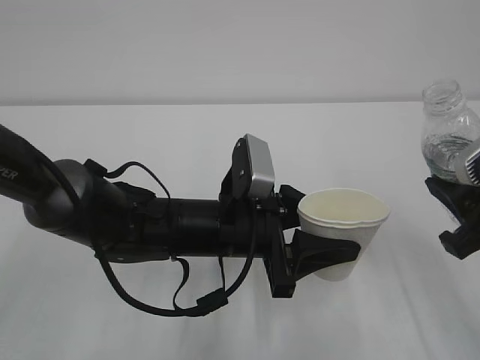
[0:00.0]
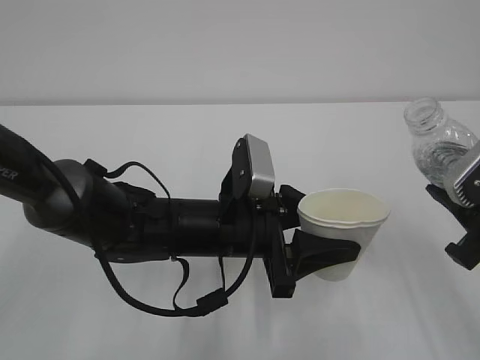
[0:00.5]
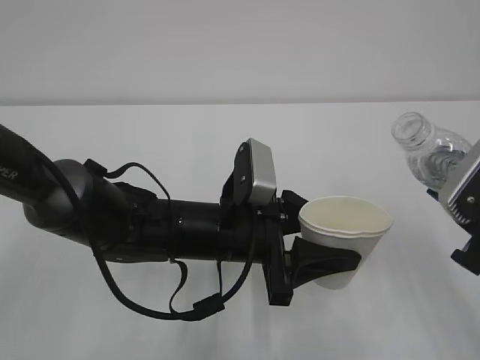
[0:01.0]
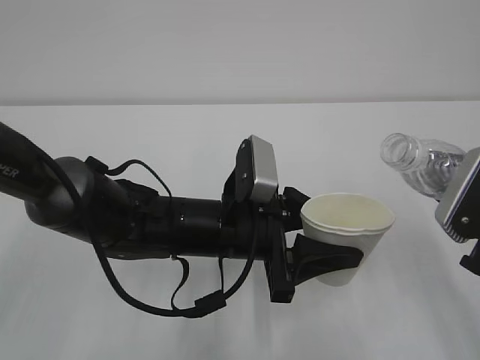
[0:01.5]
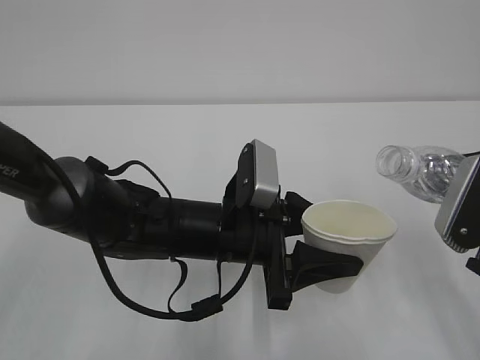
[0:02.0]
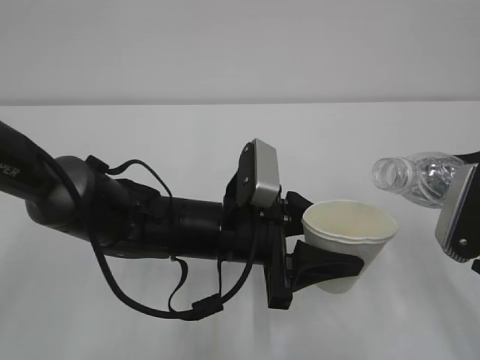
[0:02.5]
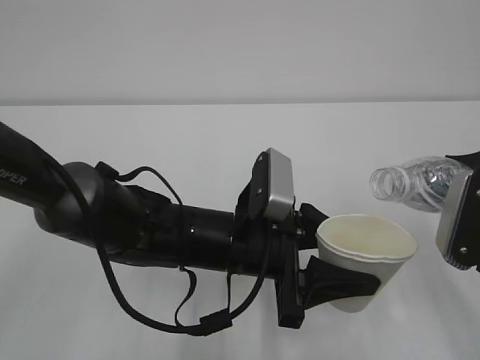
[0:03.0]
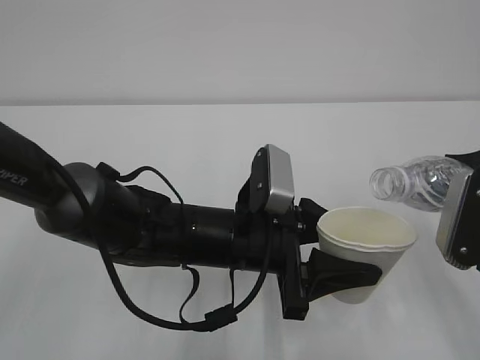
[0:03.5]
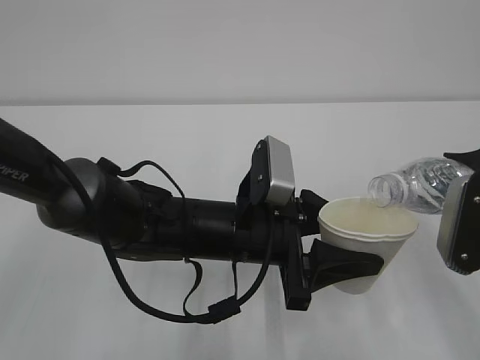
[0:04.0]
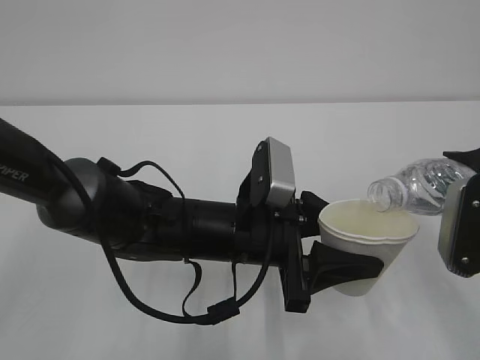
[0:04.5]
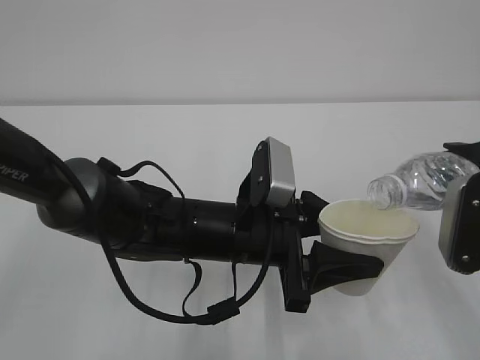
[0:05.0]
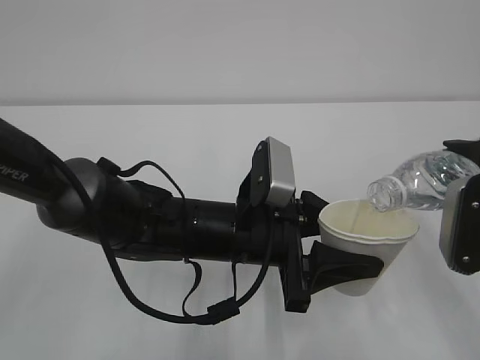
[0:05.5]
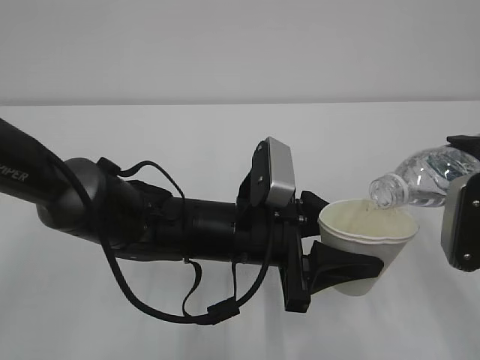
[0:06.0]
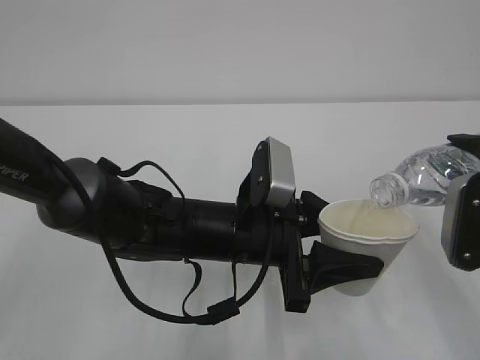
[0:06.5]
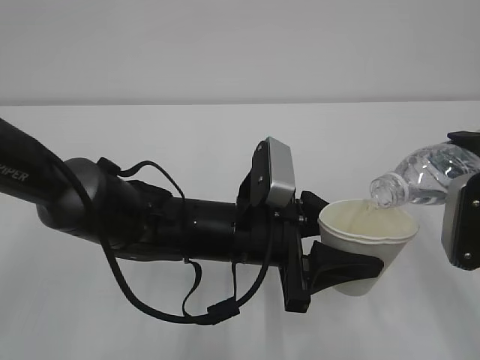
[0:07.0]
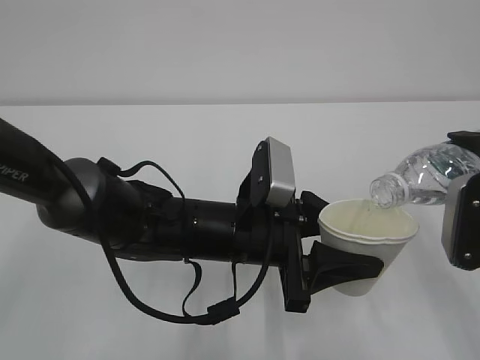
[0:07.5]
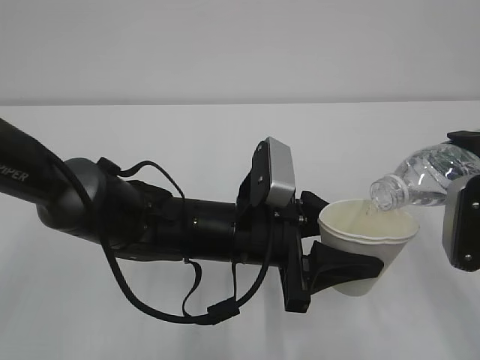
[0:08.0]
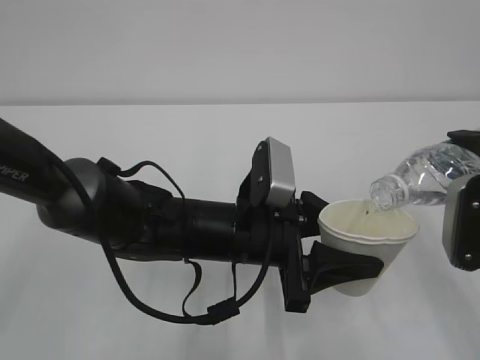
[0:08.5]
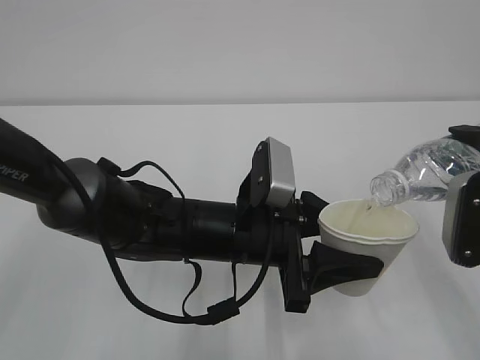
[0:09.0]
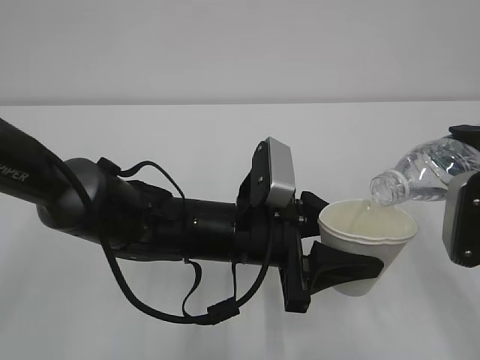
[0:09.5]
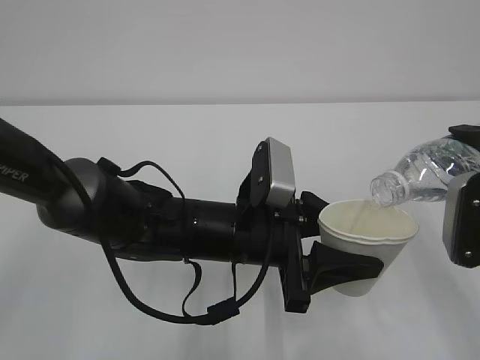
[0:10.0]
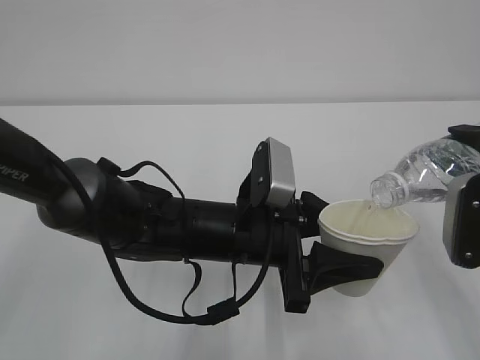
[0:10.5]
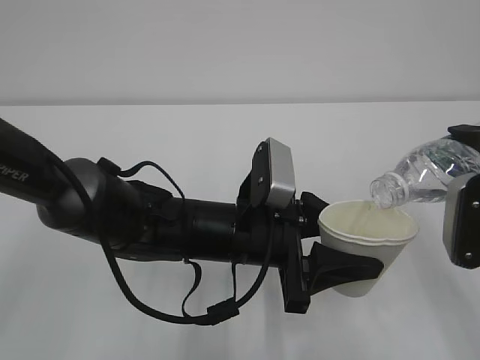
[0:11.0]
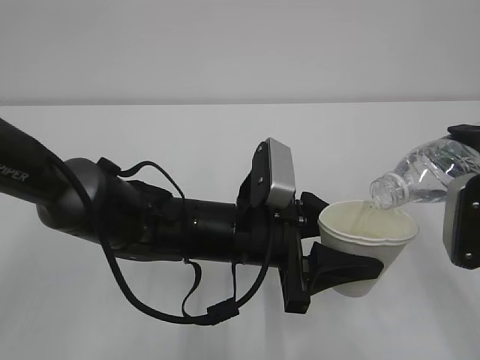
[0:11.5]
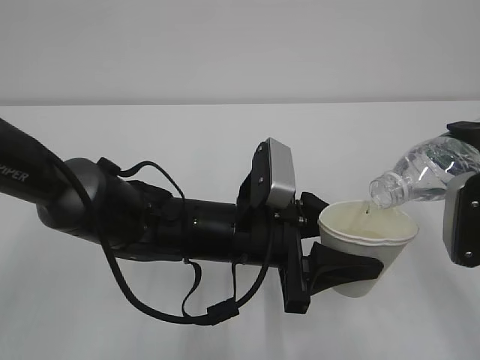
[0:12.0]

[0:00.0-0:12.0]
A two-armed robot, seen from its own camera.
2.0 to 4.0 s: The grippers move only a little.
4.0 to 6.0 s: The grippers stay close to where they were, moving slightly.
6.0 to 10.0 s: Neither gripper changes place.
10.0 to 12.0 s: Neither gripper changes place.

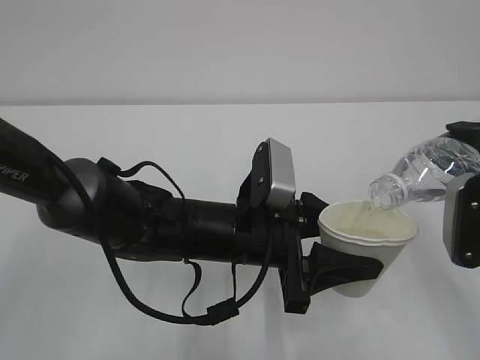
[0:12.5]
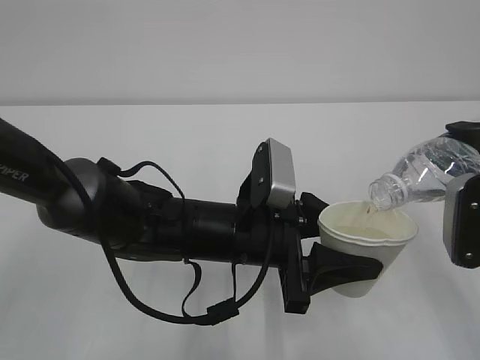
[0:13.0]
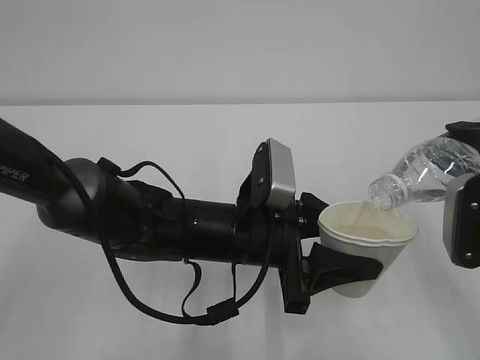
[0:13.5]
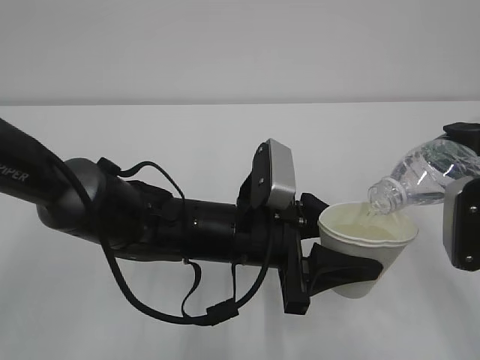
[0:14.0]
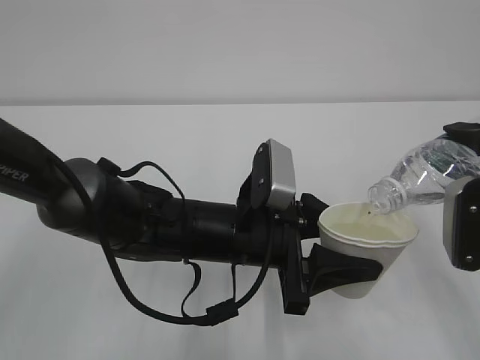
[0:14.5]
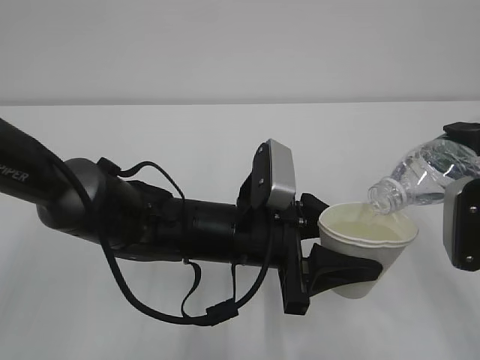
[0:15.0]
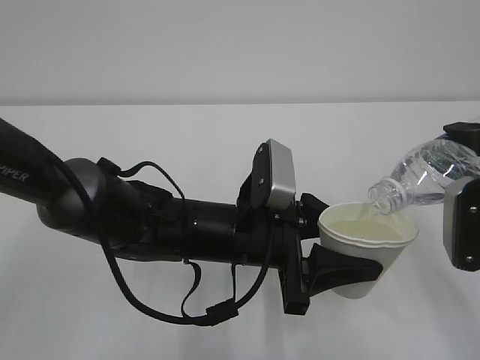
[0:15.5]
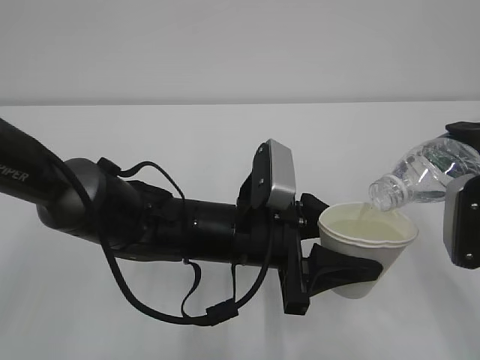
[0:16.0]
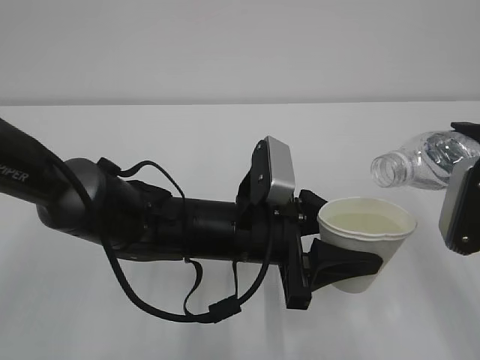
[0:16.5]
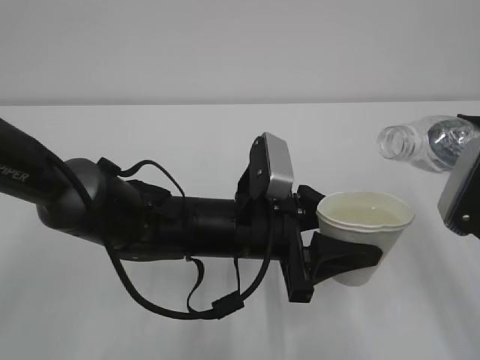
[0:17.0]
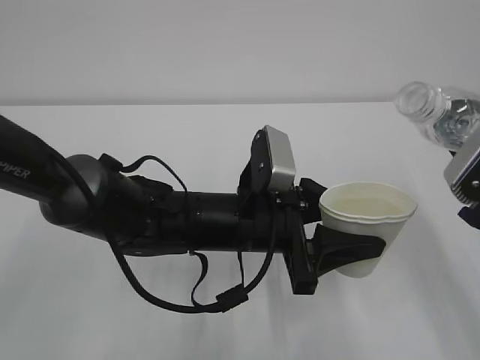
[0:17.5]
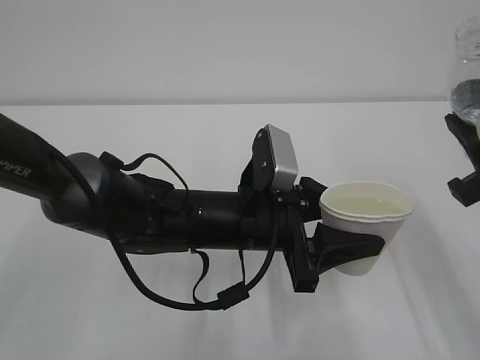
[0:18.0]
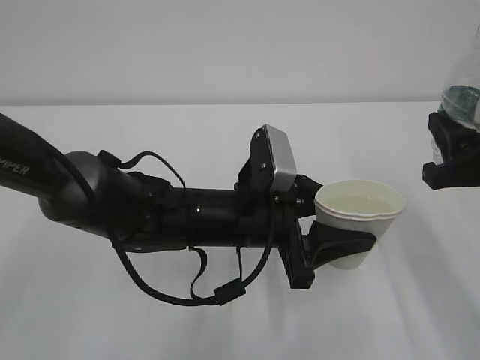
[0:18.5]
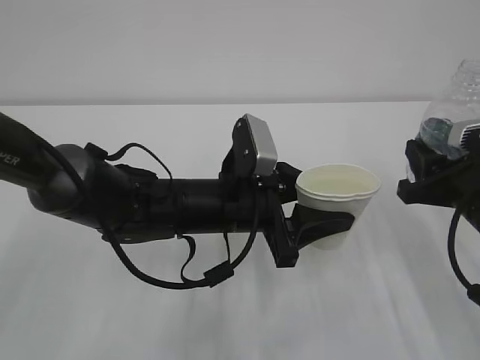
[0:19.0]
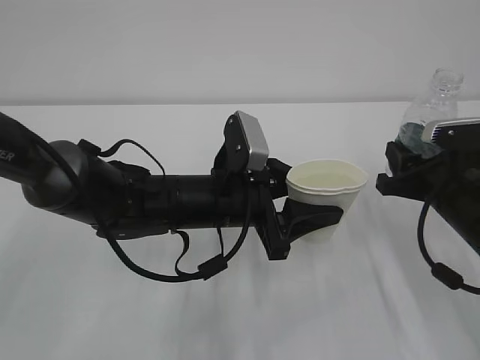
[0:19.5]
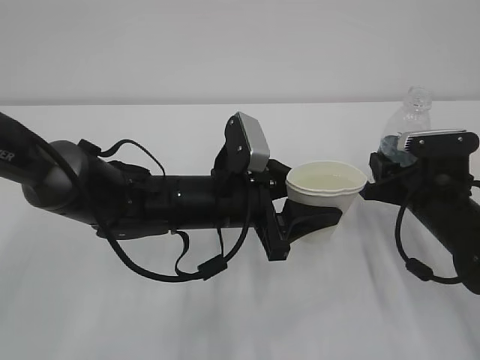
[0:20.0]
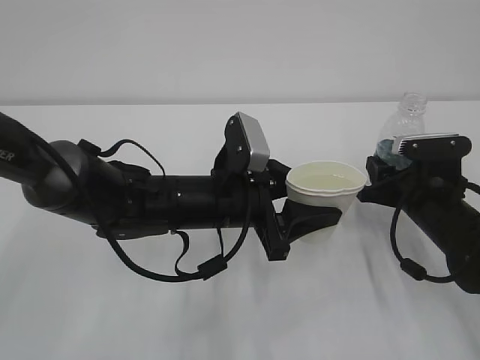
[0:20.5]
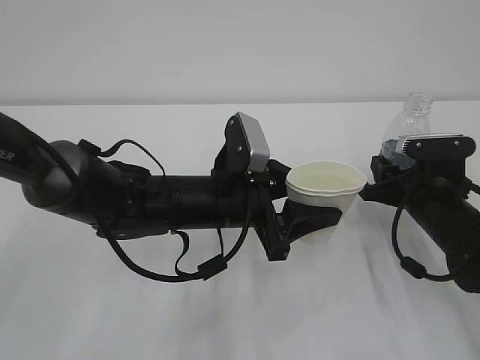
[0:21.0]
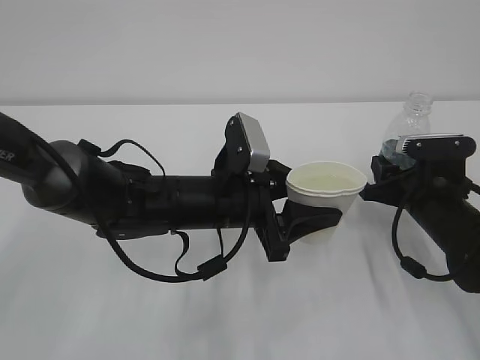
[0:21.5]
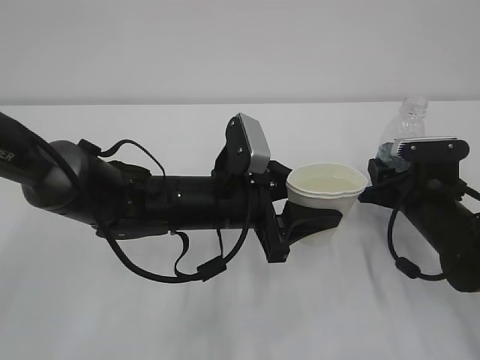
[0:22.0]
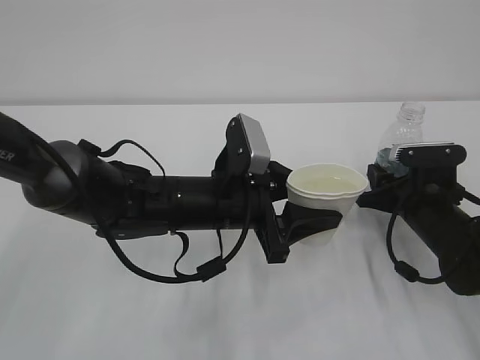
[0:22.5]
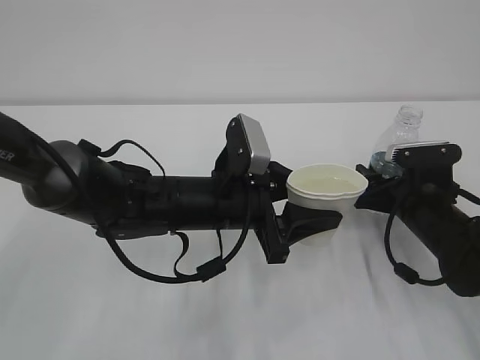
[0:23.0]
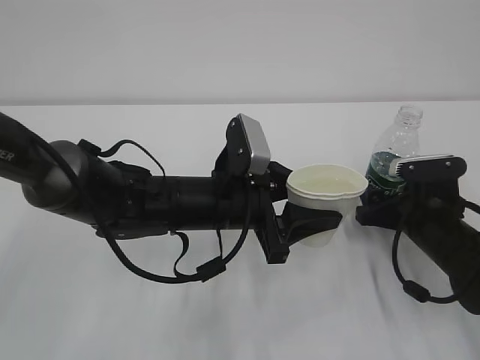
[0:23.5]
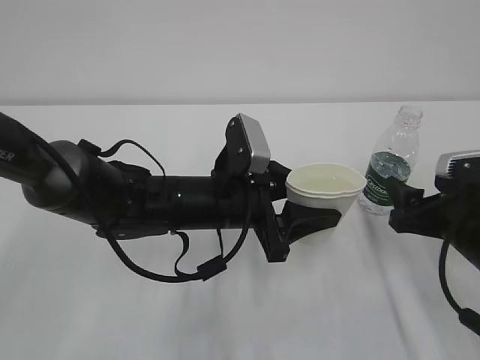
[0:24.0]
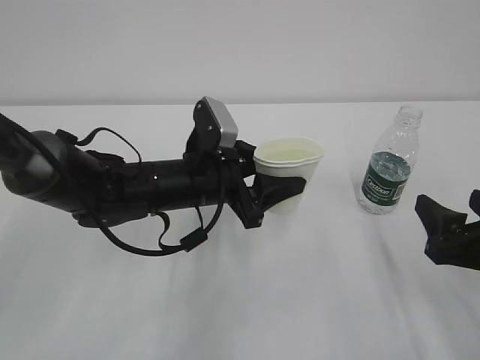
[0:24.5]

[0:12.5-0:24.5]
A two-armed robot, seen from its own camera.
12.5 to 14.5 s: Both grippers stay about where they are.
14.5 to 16.5 s: The grippers move only a little.
18.5 to 20.5 s: The right gripper travels downward and forward by approximately 15 cm.
20.5 to 22.5 s: The grippers make only small movements.
22.5 to 24.5 s: The right gripper travels backward and upward by approximately 15 cm, and opens its fingers.

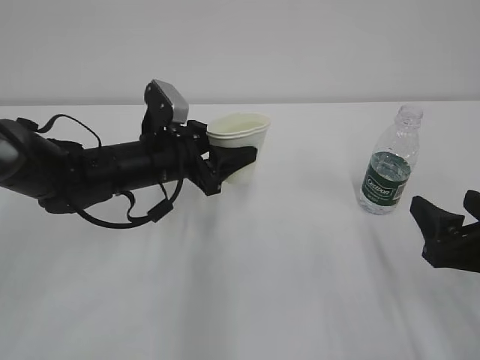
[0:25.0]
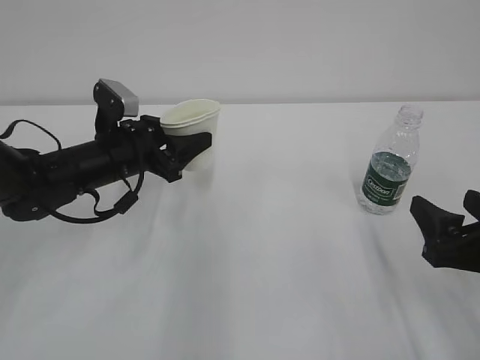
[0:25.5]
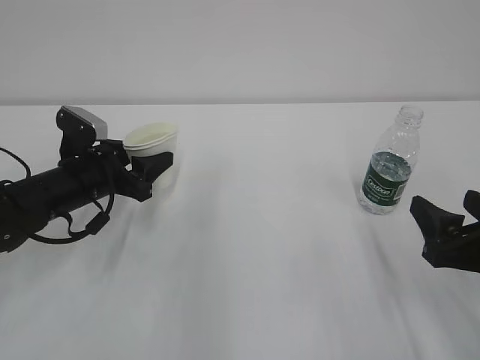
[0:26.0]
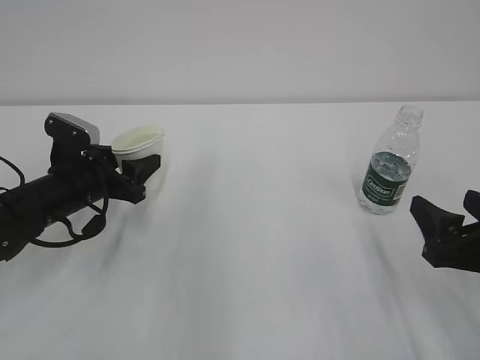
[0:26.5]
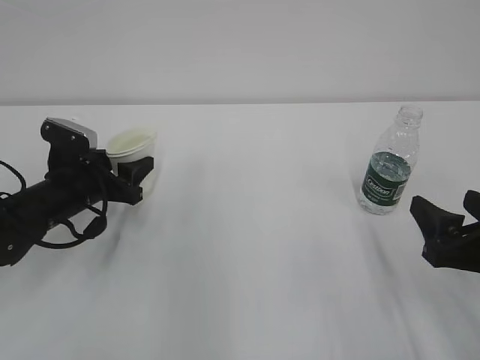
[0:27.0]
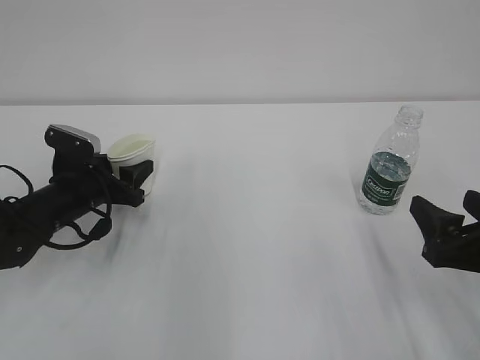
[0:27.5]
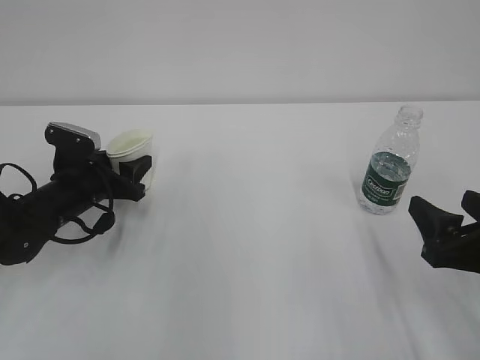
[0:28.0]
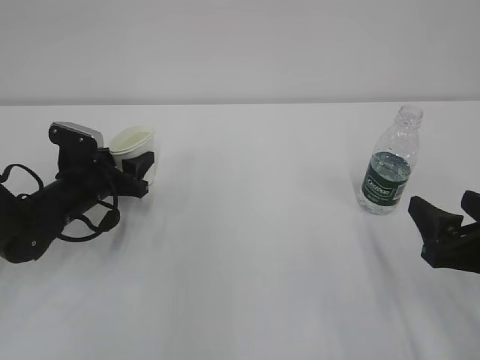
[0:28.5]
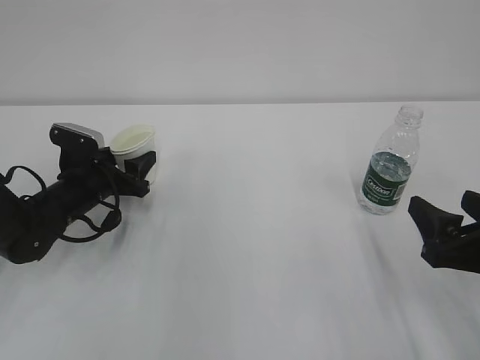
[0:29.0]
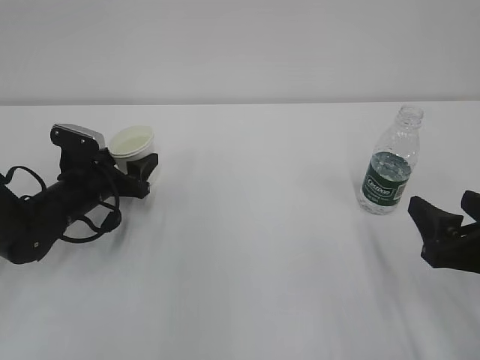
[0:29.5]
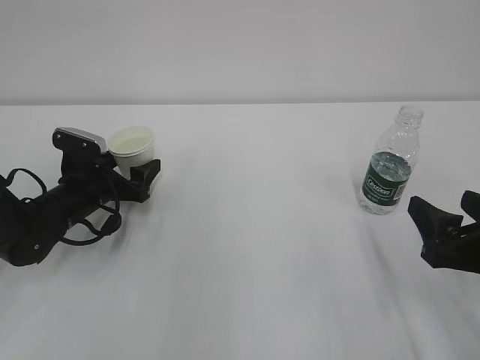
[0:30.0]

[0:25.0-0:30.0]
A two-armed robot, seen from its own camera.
25.0 to 27.5 s: The left gripper travels to the left and downward by some 15 cm.
27.5 to 30.0 s: The left gripper opens its fingers.
